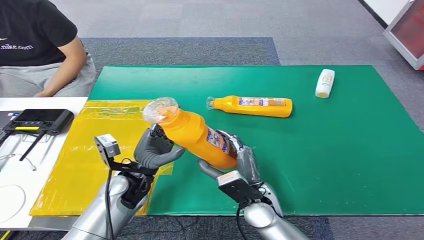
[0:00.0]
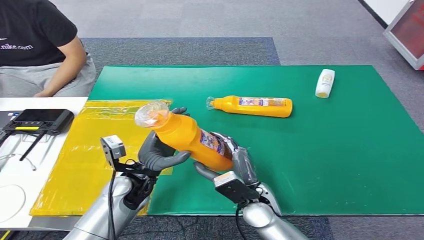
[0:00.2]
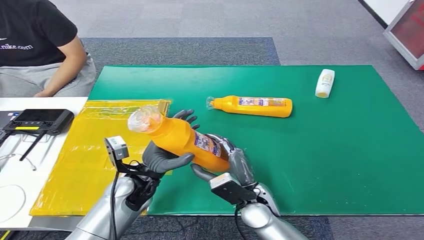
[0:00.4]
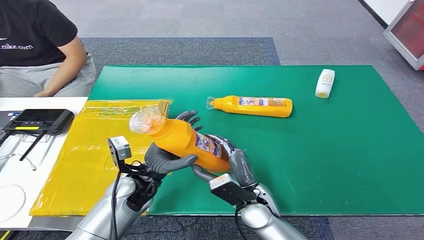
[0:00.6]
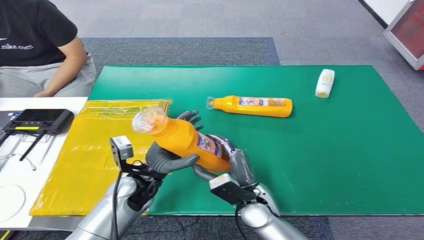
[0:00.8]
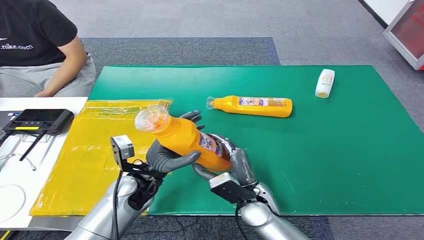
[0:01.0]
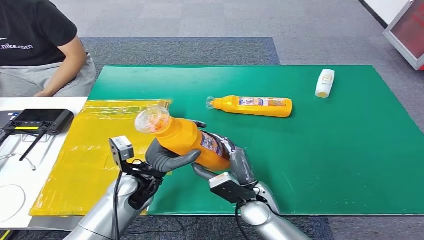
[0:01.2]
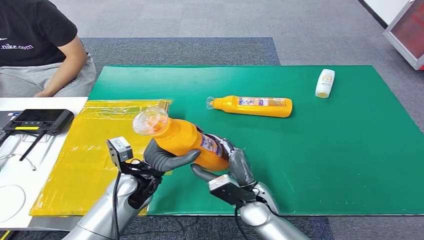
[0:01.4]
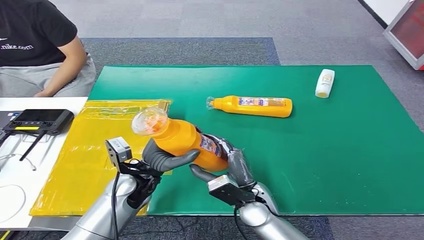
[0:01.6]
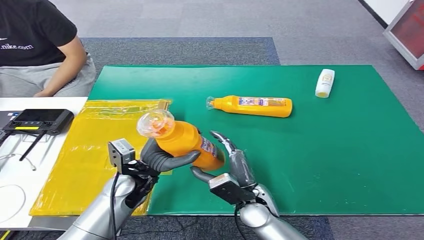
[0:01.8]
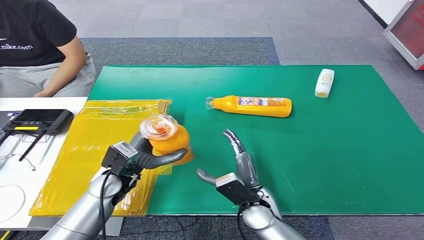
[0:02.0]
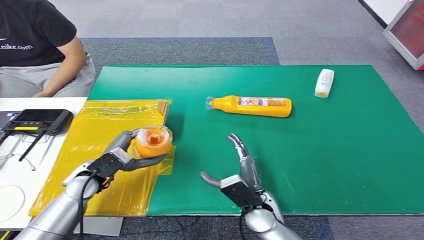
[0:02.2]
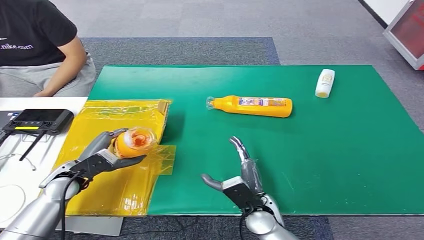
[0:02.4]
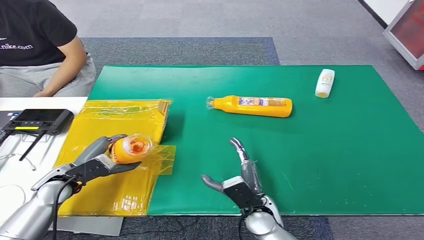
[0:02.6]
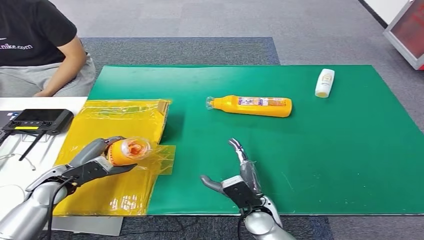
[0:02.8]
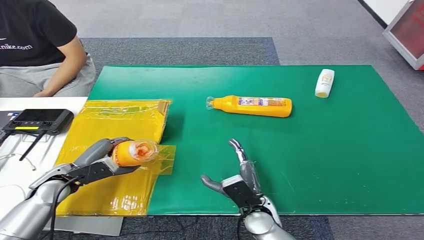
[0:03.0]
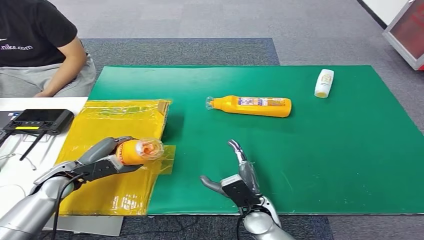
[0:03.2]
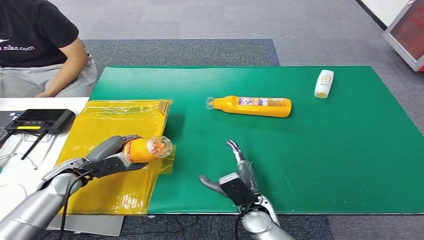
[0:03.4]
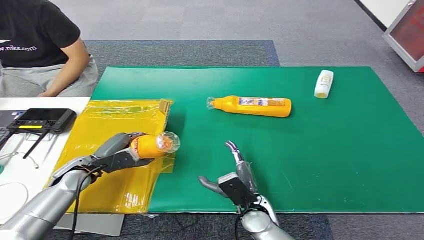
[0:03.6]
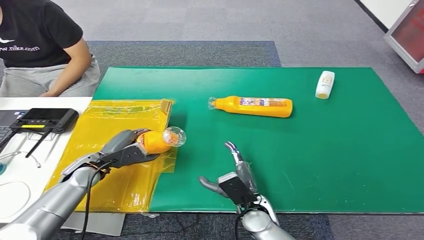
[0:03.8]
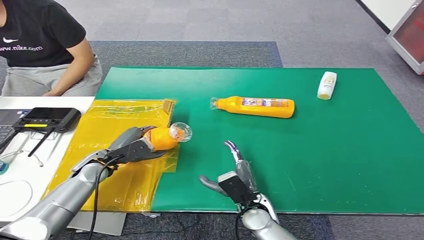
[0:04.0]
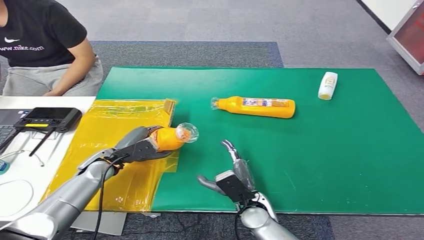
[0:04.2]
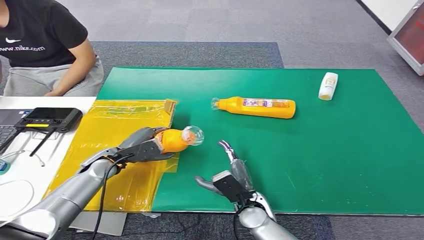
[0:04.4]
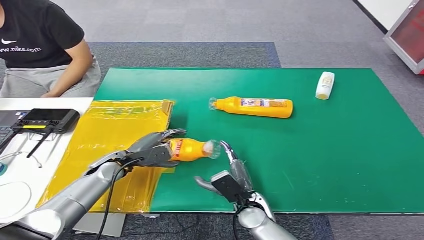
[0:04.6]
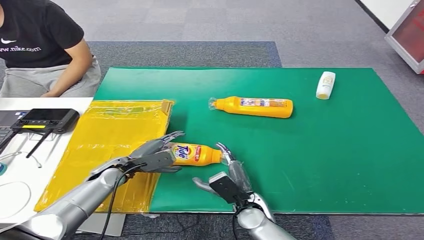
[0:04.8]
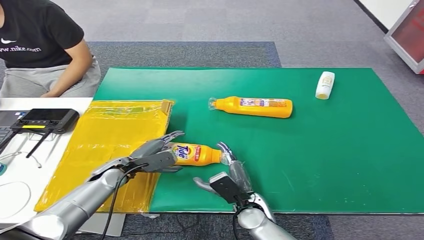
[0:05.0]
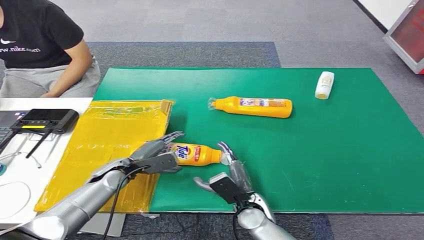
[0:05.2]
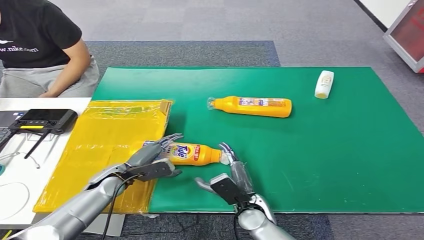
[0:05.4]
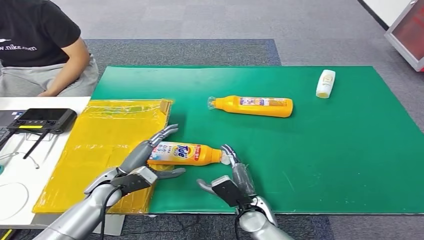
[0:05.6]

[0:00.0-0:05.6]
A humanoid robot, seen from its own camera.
Step, 0:00.0 to 0:05.6: Turn the bottle to the front side.
0:00.0 to 0:01.4: The hands move only a little.
0:01.4 to 0:02.8: The left hand moves to the left, about 20 cm.

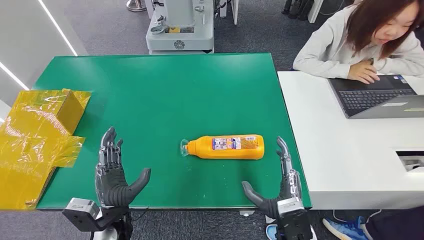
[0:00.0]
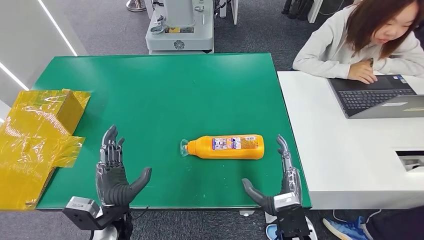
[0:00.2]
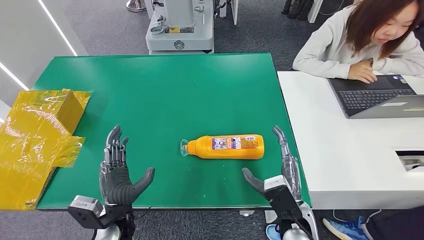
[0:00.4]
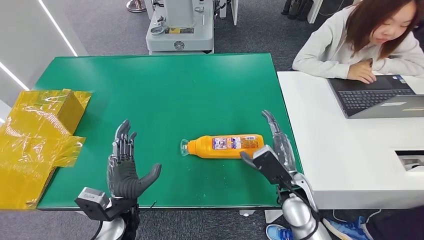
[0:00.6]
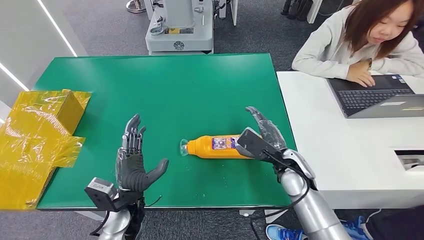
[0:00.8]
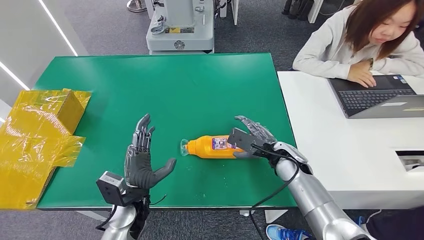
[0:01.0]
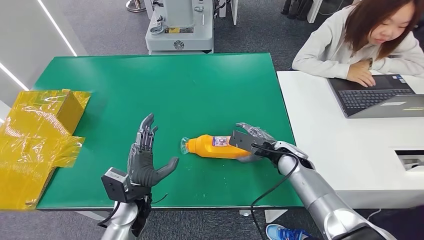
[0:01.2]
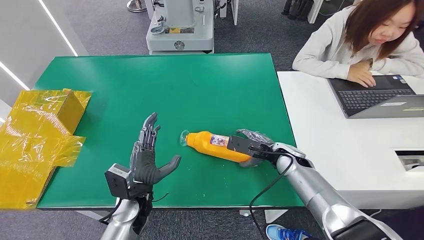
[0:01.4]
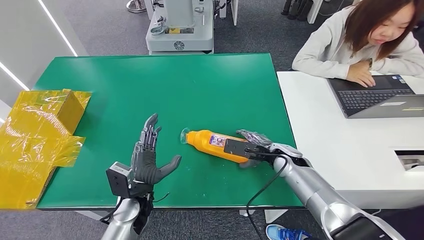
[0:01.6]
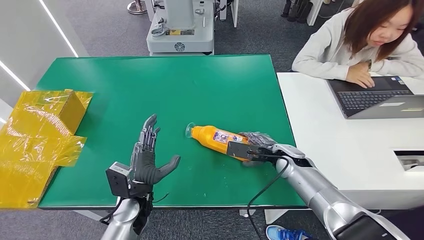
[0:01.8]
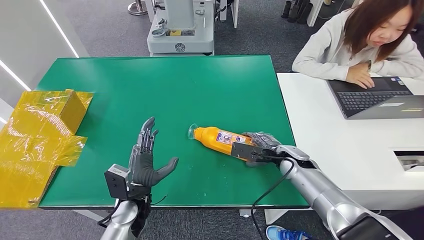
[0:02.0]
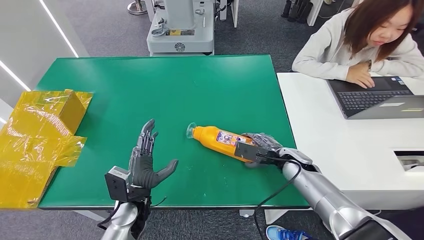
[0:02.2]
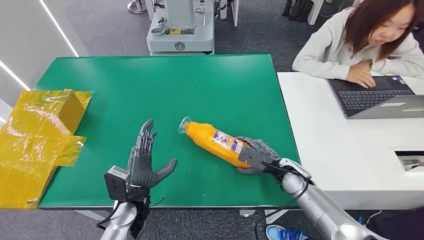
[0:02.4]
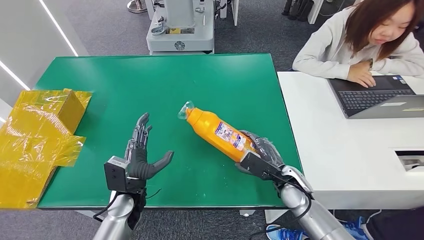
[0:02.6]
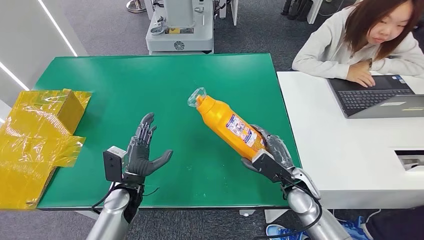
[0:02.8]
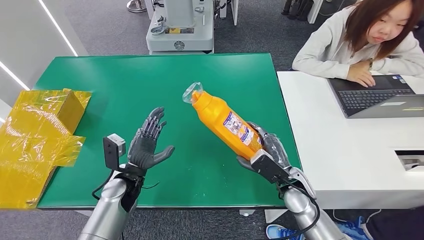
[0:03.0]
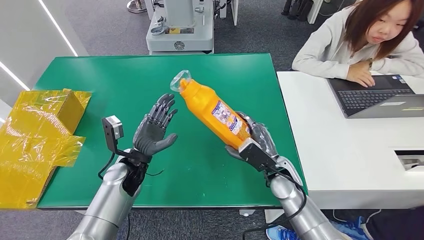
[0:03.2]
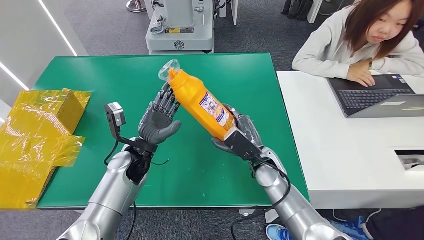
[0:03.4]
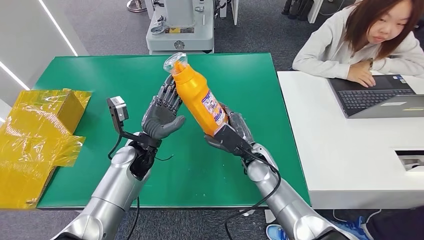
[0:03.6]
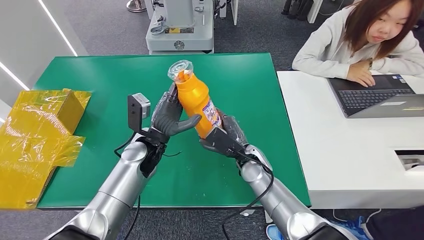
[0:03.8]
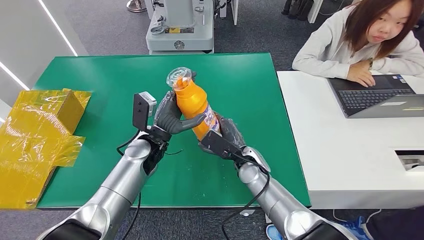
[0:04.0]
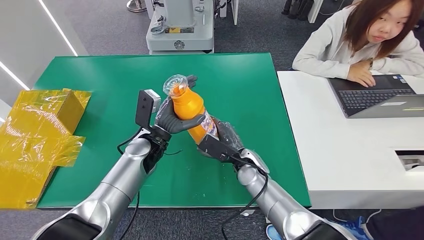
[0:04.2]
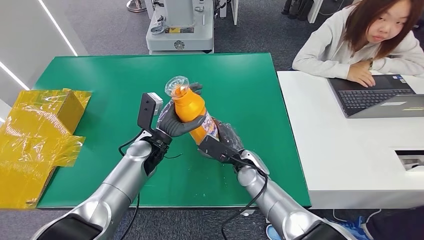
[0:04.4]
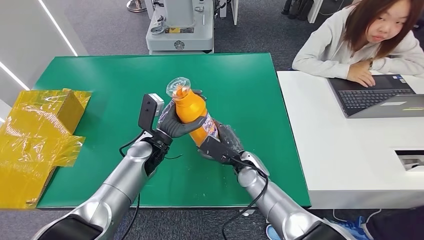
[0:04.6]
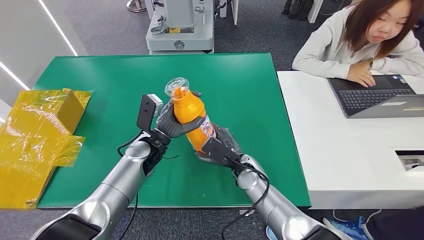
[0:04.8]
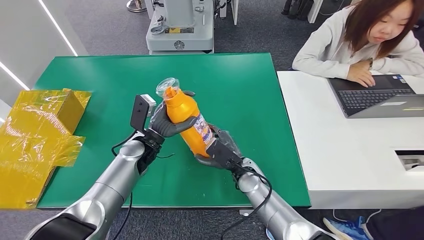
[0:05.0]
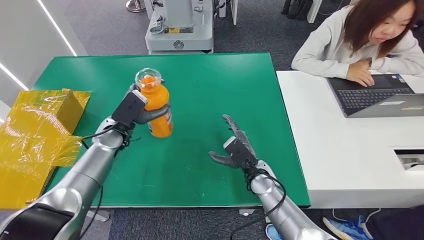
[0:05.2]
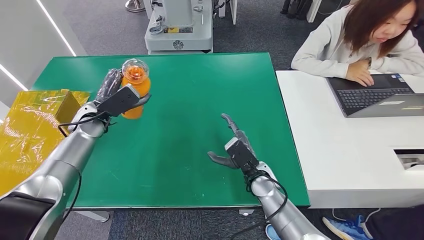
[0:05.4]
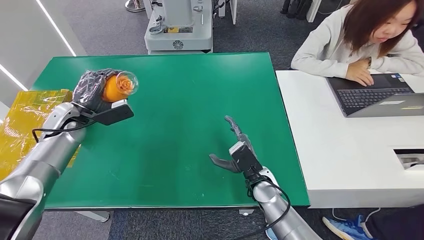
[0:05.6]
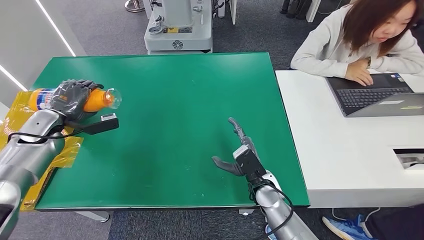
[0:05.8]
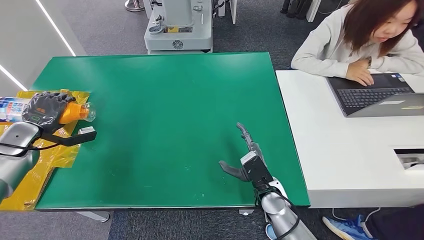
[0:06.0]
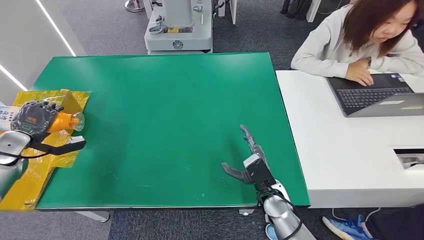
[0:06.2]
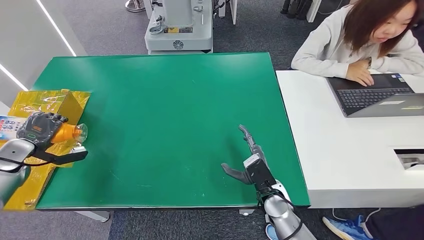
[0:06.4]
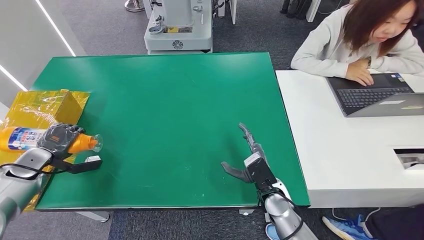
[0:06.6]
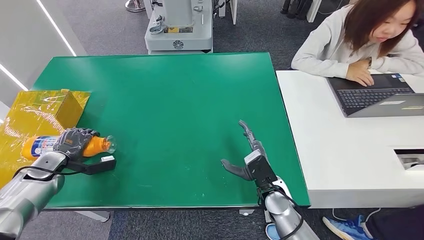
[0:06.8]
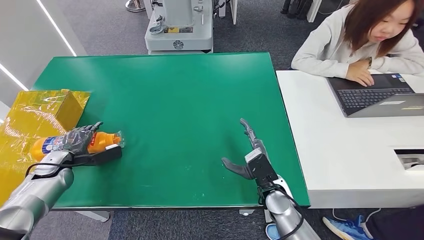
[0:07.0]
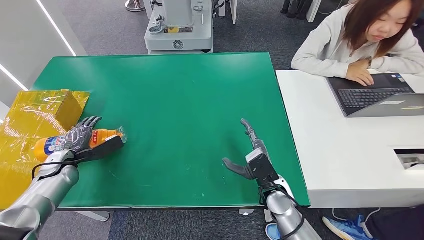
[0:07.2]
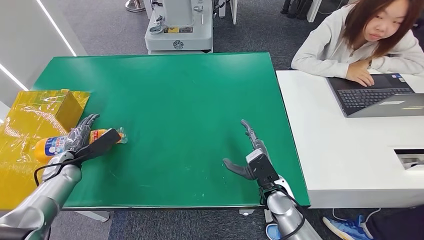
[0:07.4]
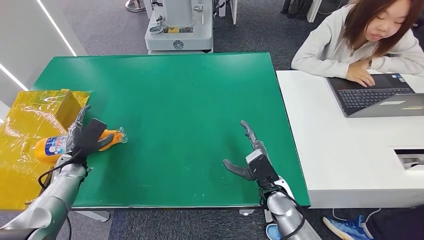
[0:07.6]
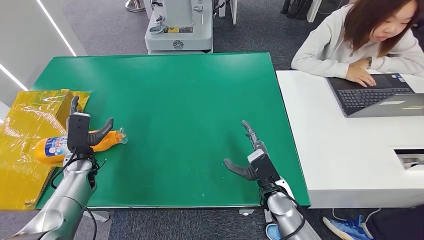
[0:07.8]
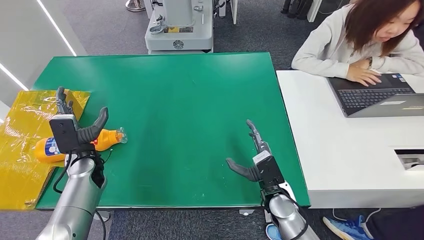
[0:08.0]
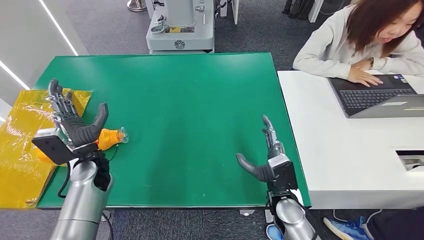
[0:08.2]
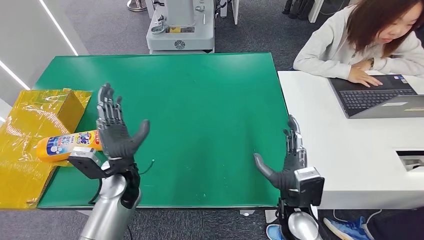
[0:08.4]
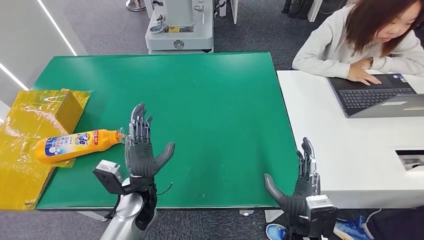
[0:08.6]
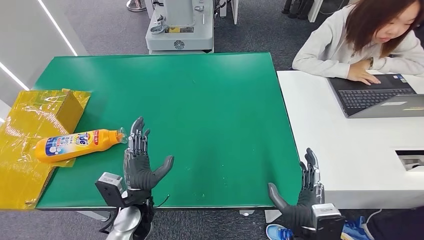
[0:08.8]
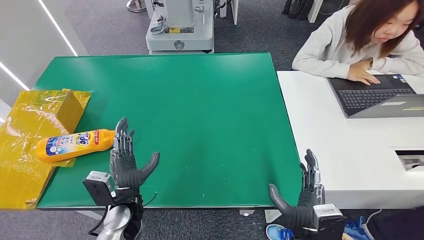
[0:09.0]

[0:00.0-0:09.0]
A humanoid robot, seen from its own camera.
Step, 0:00.0 to 0:02.6: Pick up the bottle from the table.
Step, 0:04.4 to 0:09.0: Turn the bottle to the front side.
0:01.6 to 0:03.0: The left hand changes place by approximately 5 cm, while the right hand heads backward, covering approximately 10 cm.
0:03.0 to 0:04.4: The right hand heads to the left and forward, covering approximately 10 cm. The left hand travels forward, upward and to the right by roughly 10 cm.
0:06.0 to 0:07.6: The left hand shifts approximately 15 cm downward and to the right.
0:07.6 to 0:09.0: The left hand heads to the right and backward, covering about 25 cm. Meanwhile the right hand heads backward, covering some 15 cm.
